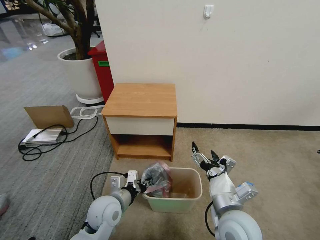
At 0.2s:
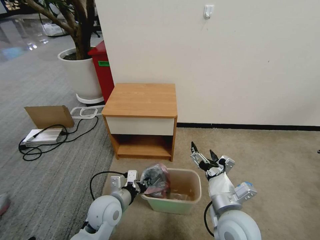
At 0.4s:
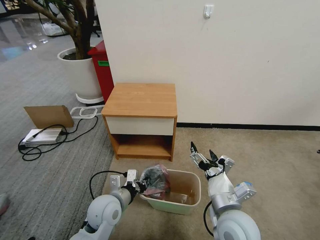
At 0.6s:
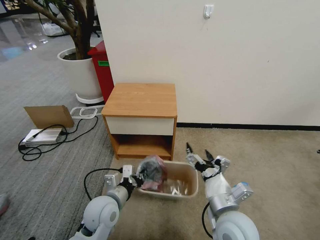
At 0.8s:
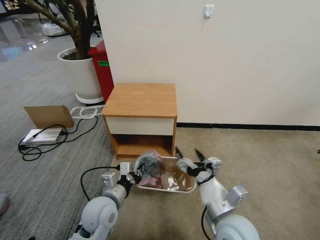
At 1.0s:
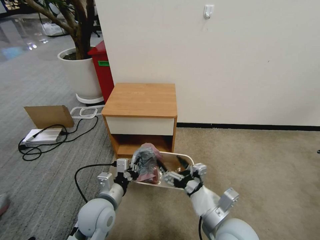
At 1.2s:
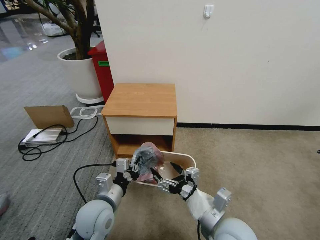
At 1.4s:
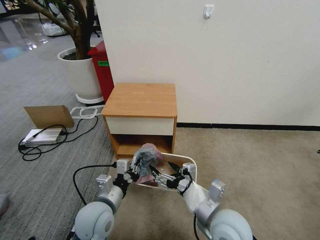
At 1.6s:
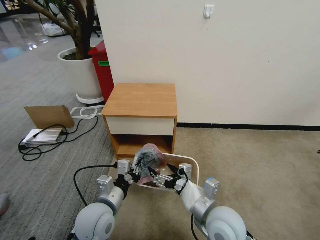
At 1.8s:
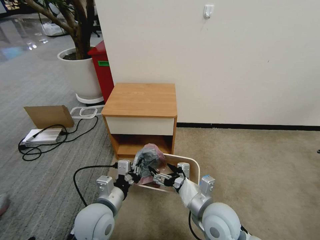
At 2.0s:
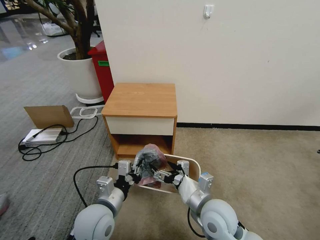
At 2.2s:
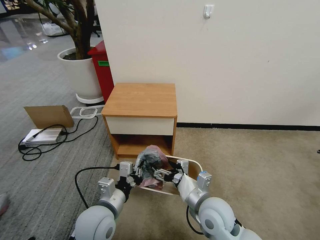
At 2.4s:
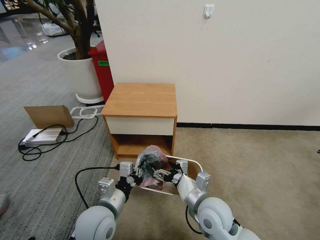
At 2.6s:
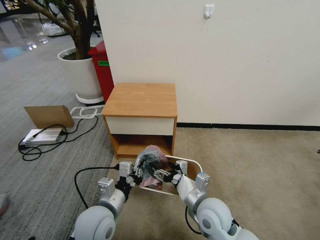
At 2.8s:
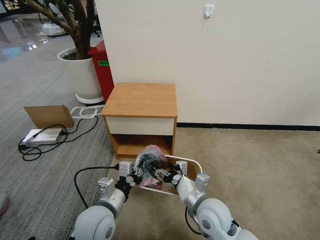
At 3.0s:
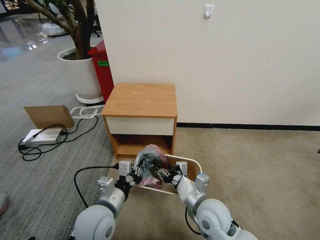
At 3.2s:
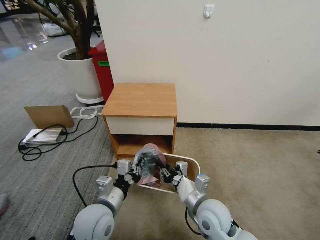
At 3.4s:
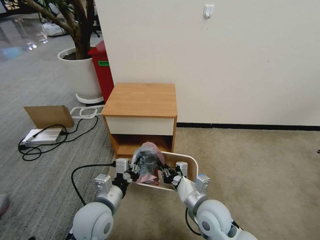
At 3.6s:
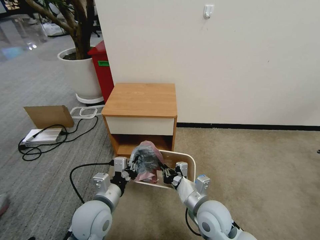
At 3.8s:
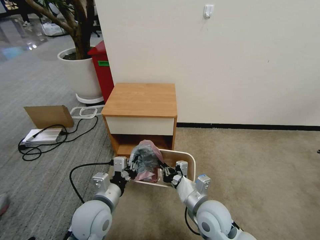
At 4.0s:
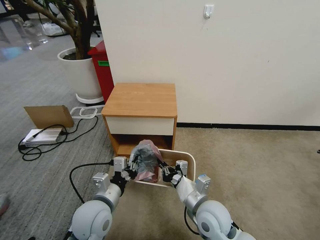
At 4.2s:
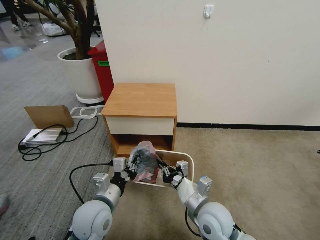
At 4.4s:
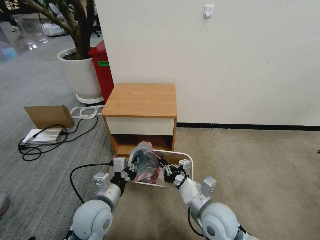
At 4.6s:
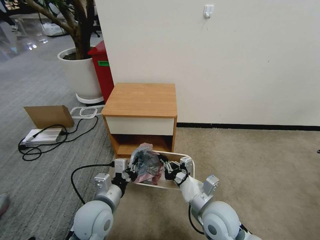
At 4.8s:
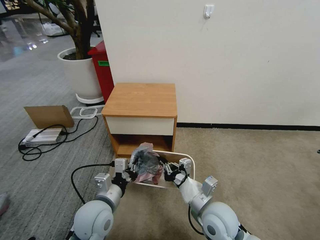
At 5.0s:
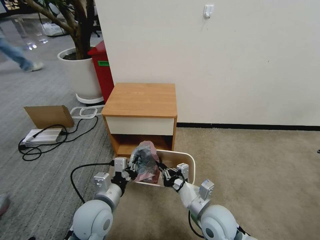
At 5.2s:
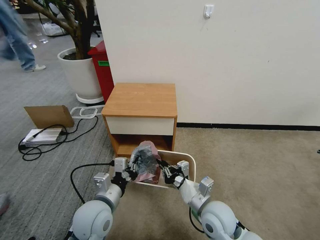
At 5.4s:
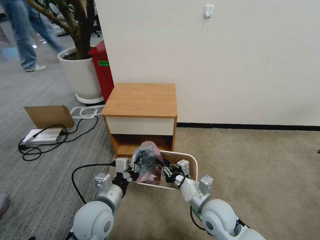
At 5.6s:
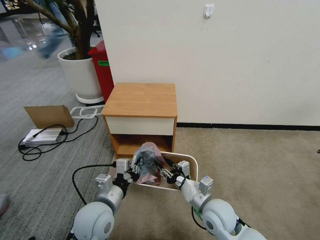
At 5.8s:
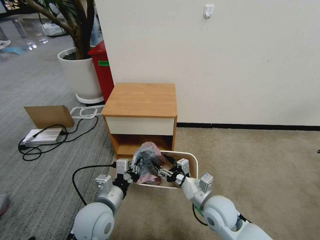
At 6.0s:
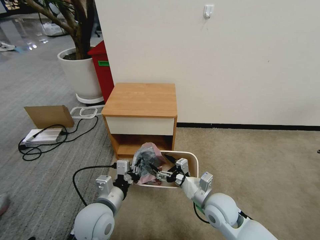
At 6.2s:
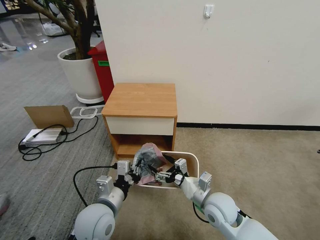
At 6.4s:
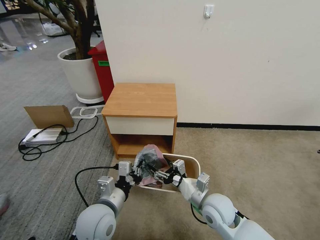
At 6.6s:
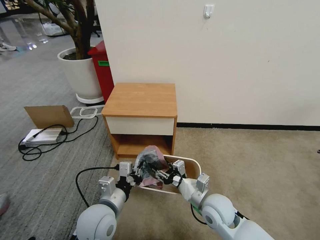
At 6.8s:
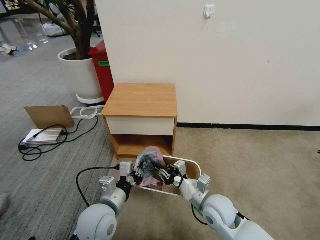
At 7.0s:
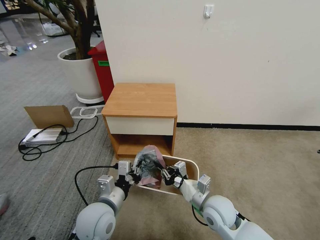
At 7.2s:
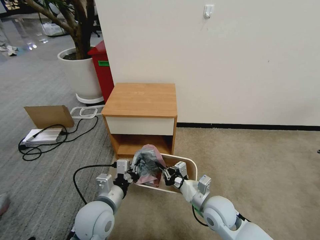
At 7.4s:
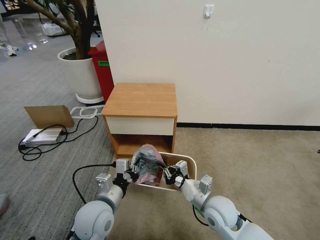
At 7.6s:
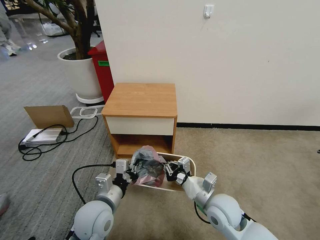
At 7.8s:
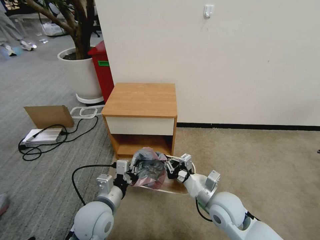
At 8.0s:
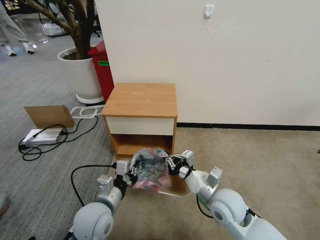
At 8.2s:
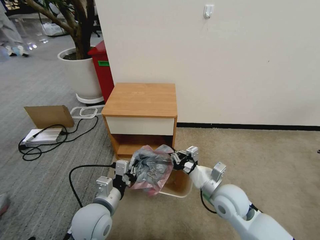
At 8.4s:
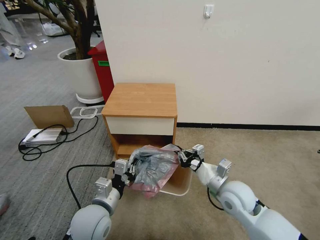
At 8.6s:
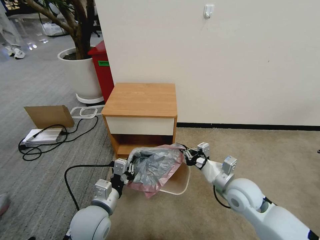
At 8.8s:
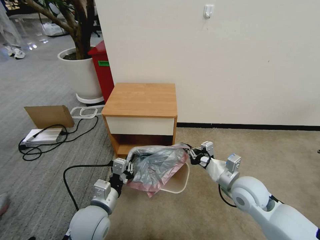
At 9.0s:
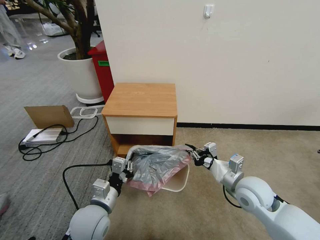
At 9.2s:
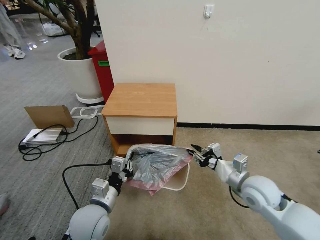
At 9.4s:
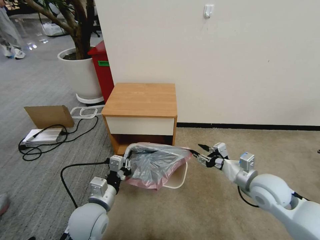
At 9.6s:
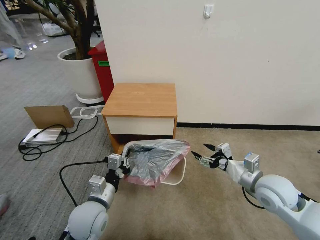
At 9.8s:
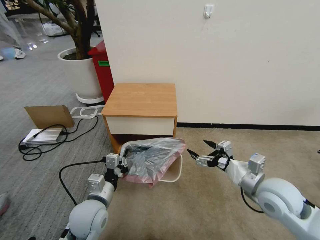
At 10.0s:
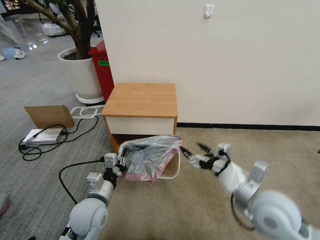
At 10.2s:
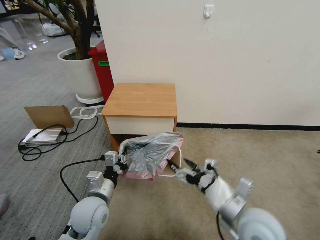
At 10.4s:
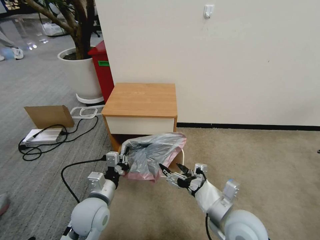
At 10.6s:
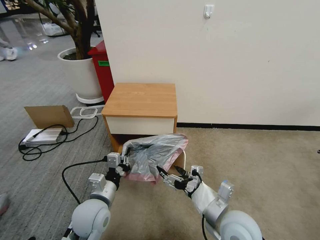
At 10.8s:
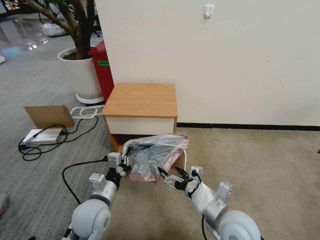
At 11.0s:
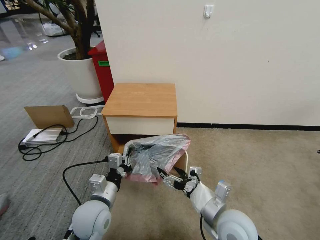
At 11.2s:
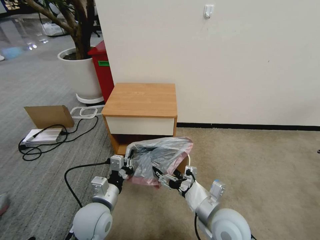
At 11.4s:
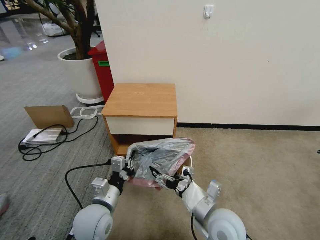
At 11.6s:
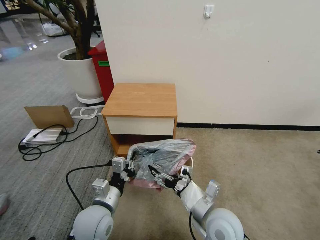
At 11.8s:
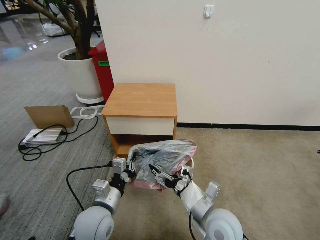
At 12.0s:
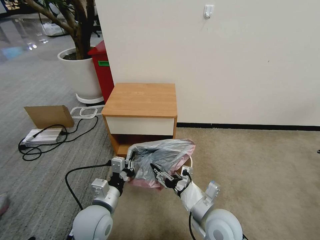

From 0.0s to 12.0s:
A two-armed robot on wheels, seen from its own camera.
Task of the whole recording: Pick up the garbage bag from the table and place it over the trash can.
From 0.0s to 1.6s: The left gripper moves about 5 cm.
From 1.6s to 3.0s: The right gripper changes place by approximately 5 cm, and closes up.
From 3.0s to 4.4s: The right gripper closes.
From 4.4s to 6.0s: The right gripper ends up approximately 5 cm from where it was, and opens its fingers.
From 6.0s to 7.6s: The right gripper closes its fingers.
From 7.6s to 9.0s: The right gripper goes some 10 cm to the right.
From 9.0s to 10.4s: The right gripper heads backward and to the left, covering about 10 cm, and opens its fingers.
From 10.4s to 12.0s: The right gripper changes place by roughly 5 cm, and closes up.

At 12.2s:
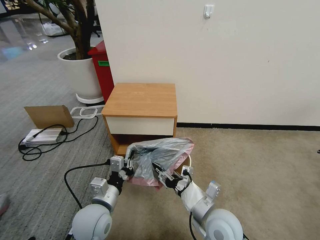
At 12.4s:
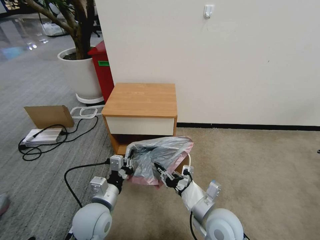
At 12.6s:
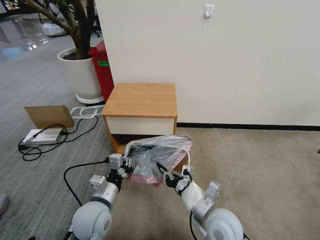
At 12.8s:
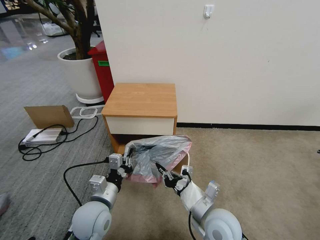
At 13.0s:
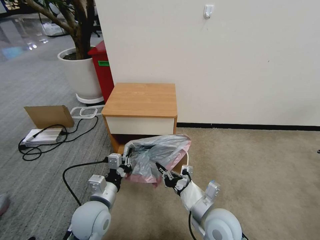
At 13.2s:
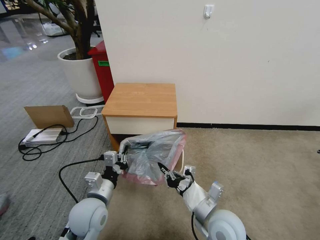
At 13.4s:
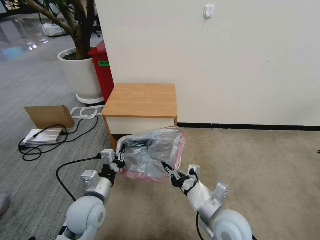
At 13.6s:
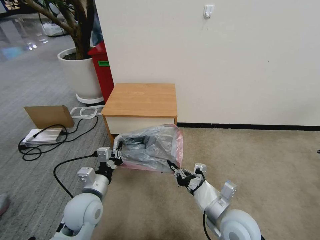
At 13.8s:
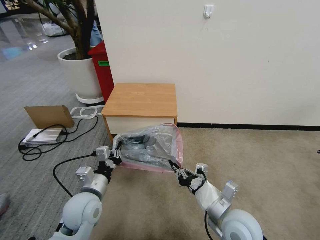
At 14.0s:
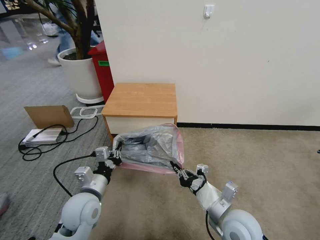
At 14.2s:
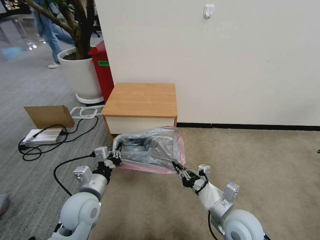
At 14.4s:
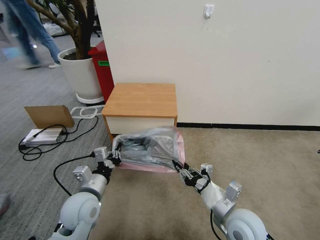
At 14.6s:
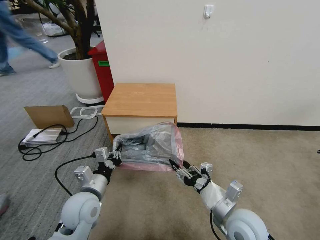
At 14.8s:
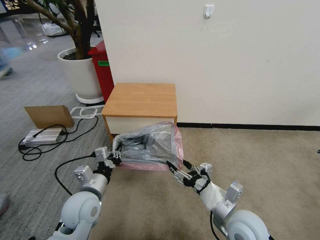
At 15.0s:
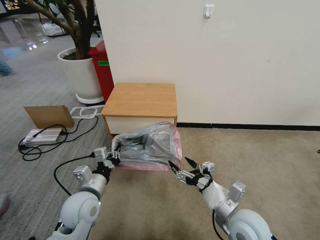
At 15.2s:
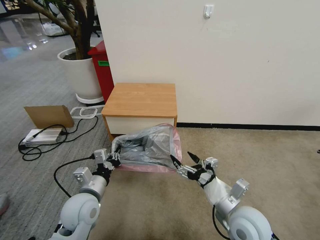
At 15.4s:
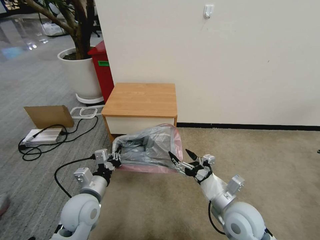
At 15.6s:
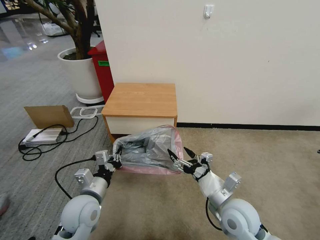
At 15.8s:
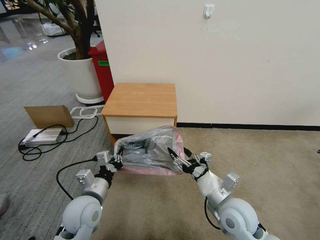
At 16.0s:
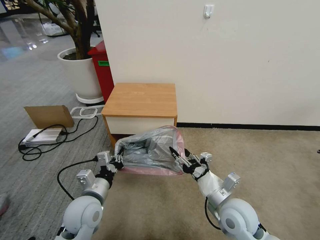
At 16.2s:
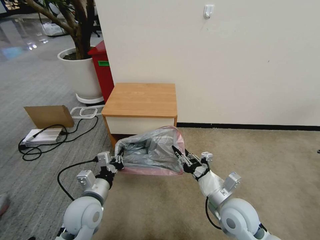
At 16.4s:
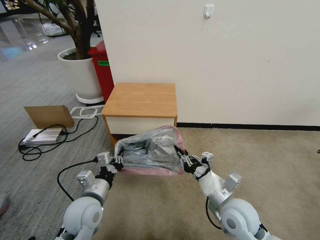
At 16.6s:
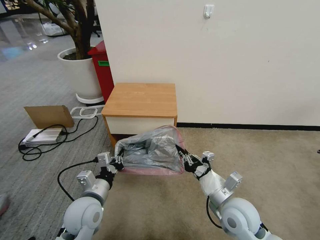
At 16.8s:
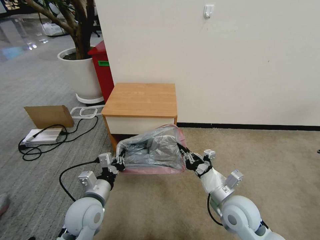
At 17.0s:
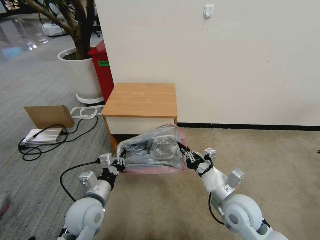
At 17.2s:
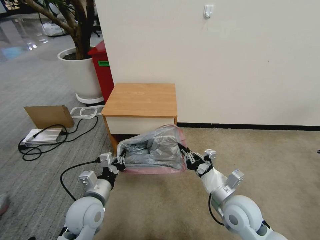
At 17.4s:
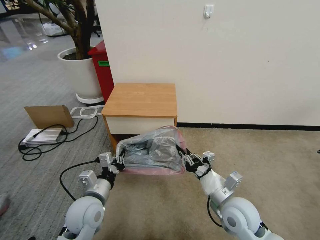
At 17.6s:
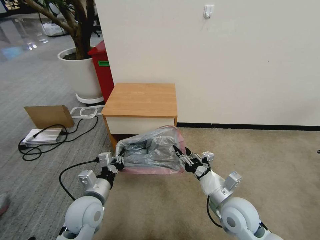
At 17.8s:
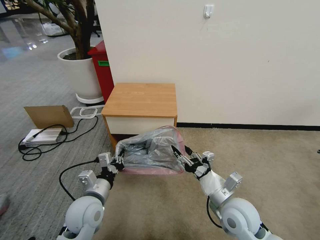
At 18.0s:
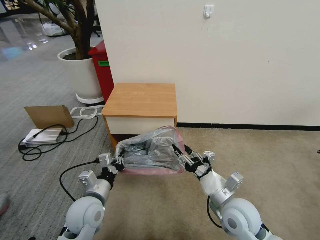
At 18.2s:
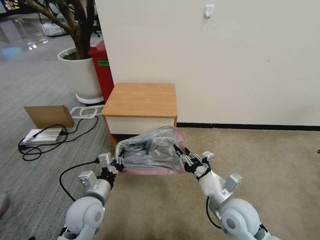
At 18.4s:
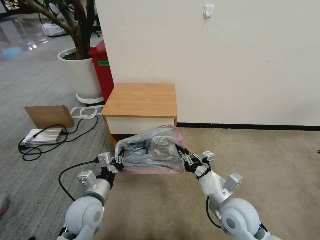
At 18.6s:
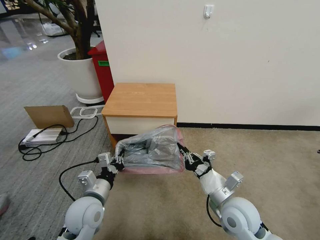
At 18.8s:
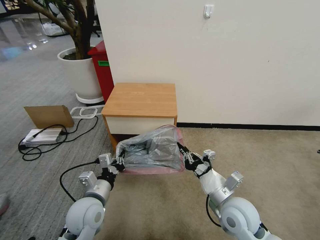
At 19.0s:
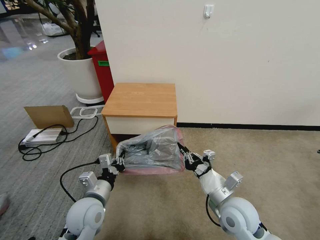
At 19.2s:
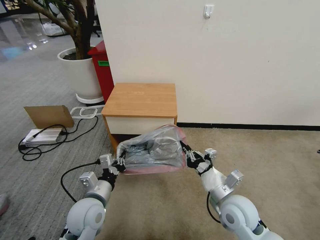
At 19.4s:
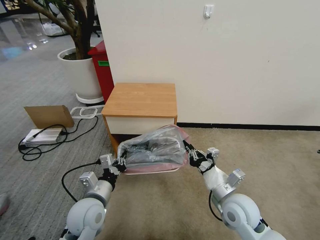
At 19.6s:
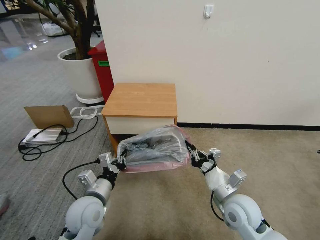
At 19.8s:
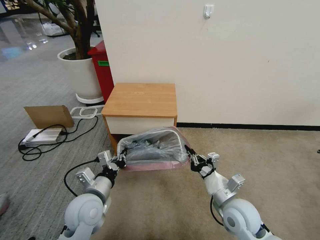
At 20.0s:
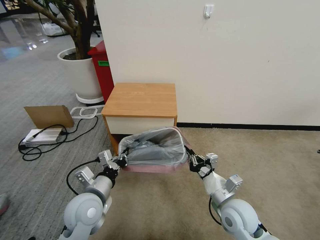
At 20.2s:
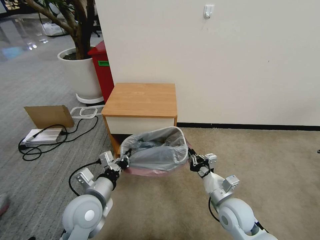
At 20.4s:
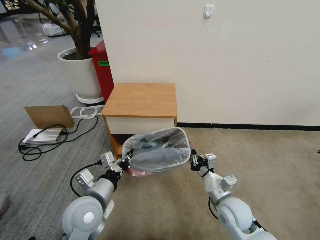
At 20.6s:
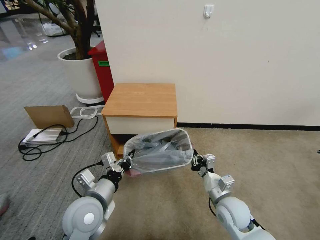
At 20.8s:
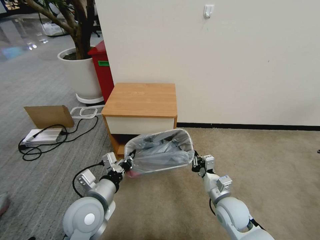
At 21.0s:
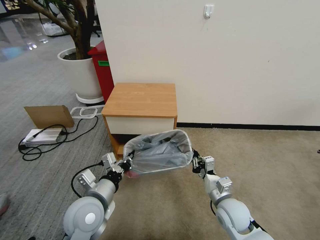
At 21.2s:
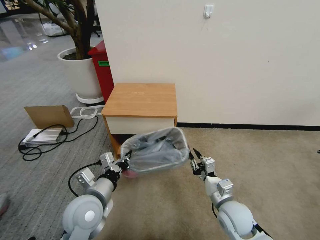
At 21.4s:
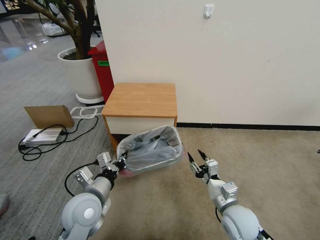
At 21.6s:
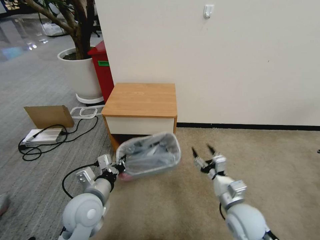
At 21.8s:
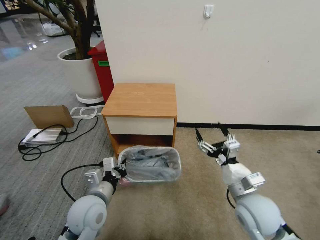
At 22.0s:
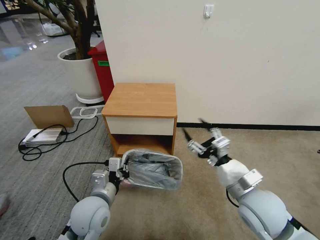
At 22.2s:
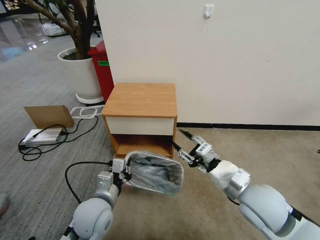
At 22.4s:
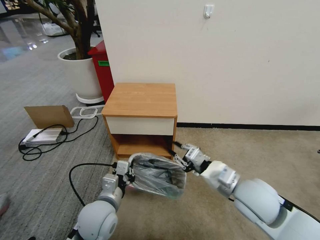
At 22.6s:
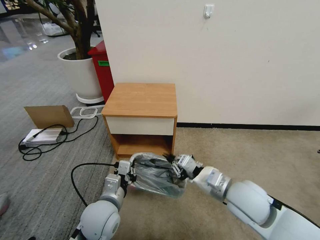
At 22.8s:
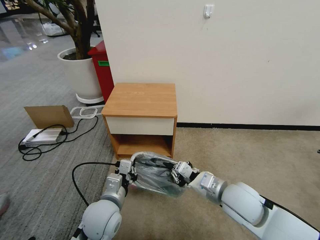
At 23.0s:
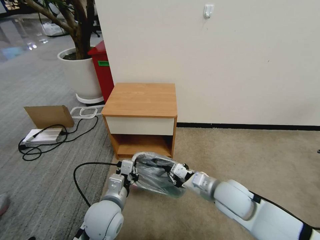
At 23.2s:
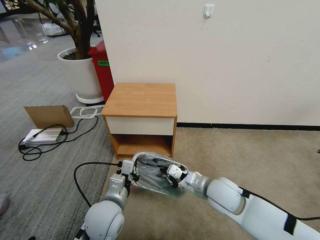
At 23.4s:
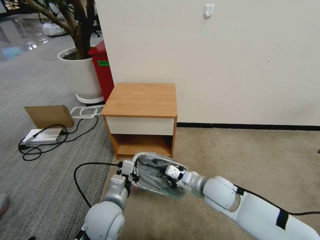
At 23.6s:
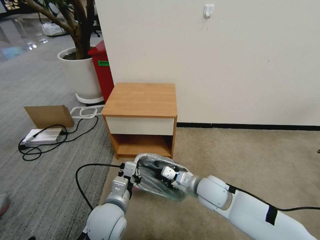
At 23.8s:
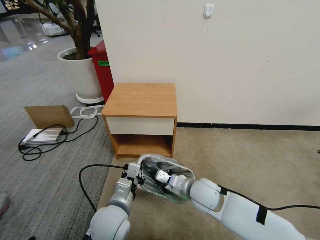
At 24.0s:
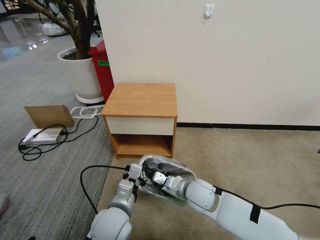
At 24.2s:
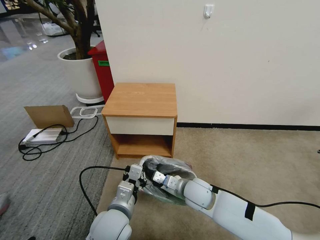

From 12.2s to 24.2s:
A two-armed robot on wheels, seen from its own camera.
Task of the whole recording: Pick up the garbage bag from the table and place it over the trash can.
From 12.2s to 13.8s: The right gripper closes up.
From 13.8s to 15.2s: The right gripper opens its fingers.
From 15.2s to 16.6s: The right gripper closes up.
From 16.6s to 18.2s: Both grippers stay put.
From 18.2s to 19.8s: The grippers stay close to where they were, moving slightly.
From 21.2s to 22.6s: The left gripper shifts by some 5 cm. The right gripper heads upward, covering about 15 cm, and opens and closes again.
From 22.6s to 24.2s: The right gripper goes approximately 15 cm downward, to the left and forward.
